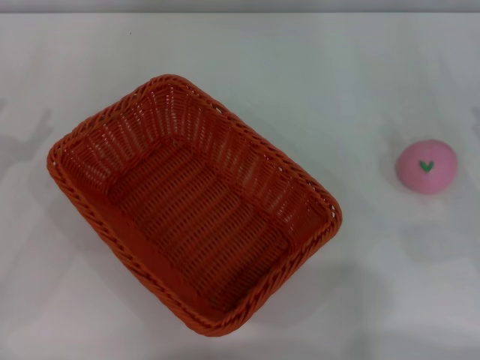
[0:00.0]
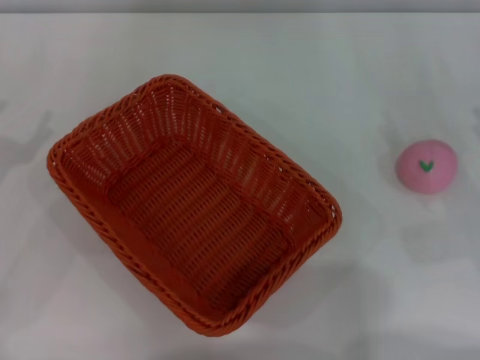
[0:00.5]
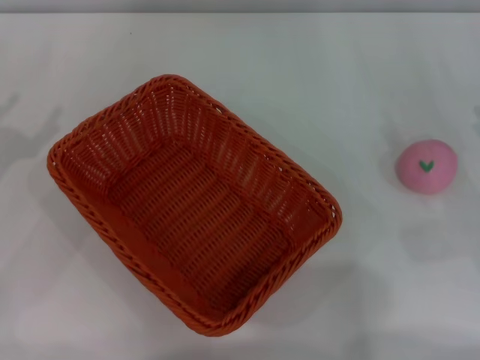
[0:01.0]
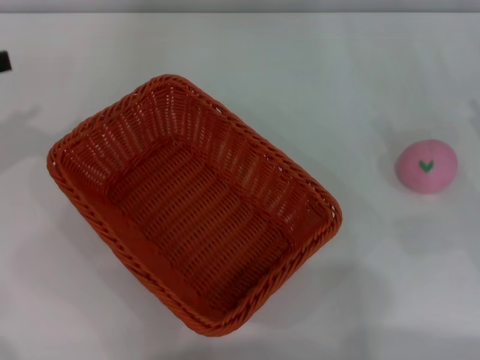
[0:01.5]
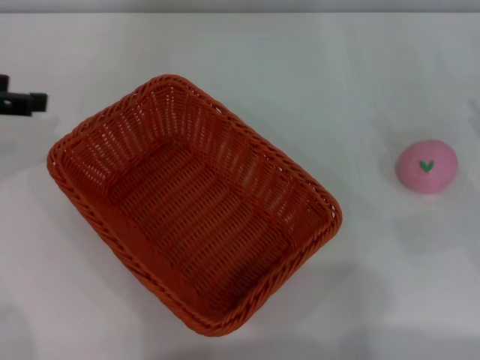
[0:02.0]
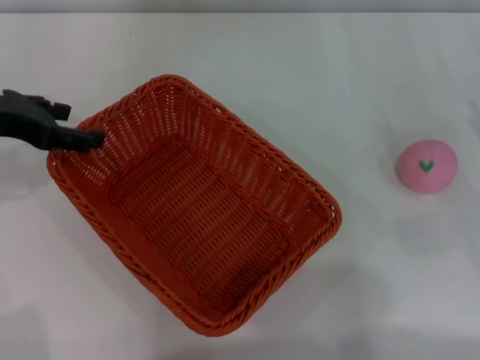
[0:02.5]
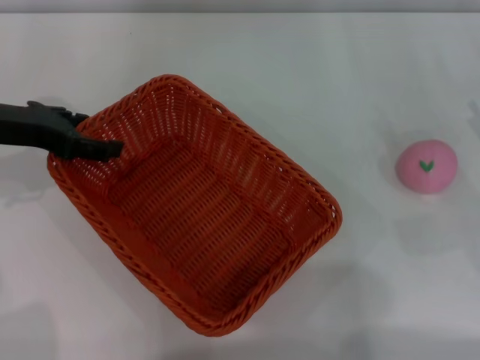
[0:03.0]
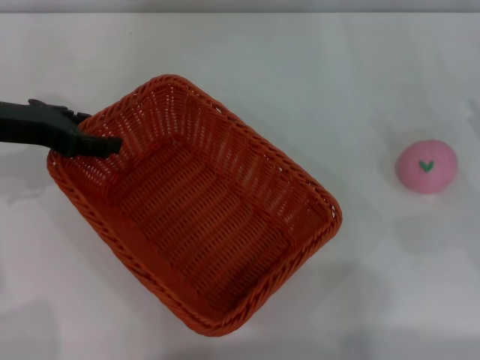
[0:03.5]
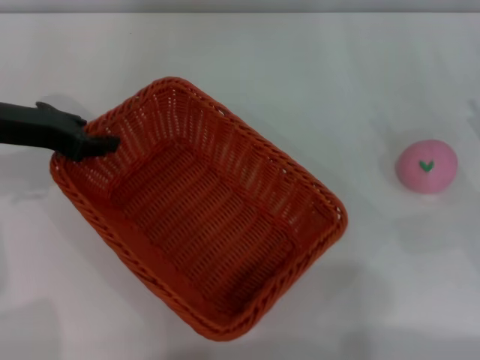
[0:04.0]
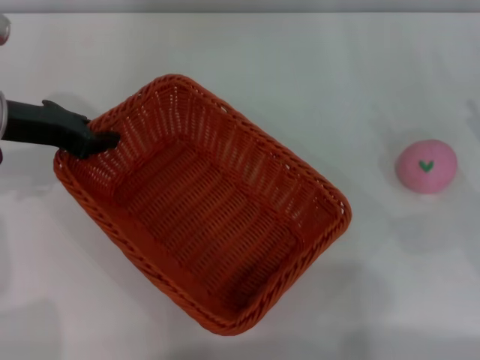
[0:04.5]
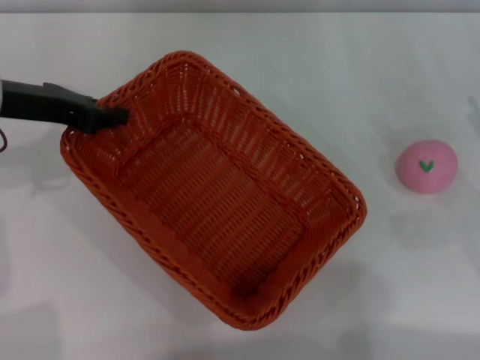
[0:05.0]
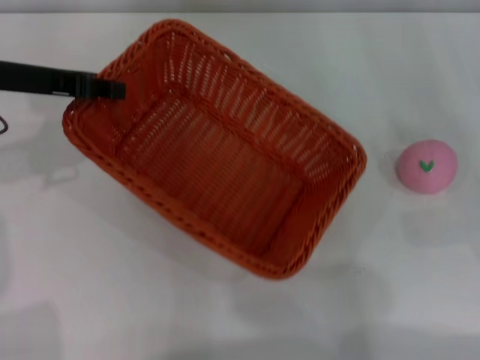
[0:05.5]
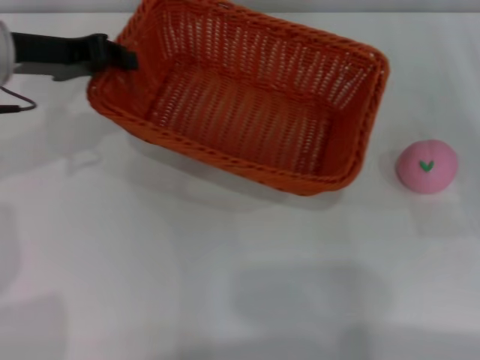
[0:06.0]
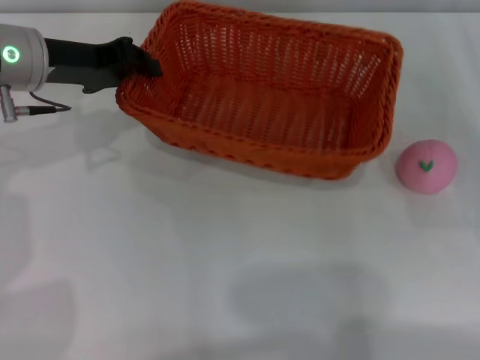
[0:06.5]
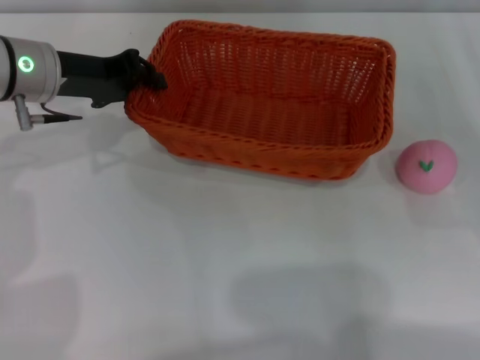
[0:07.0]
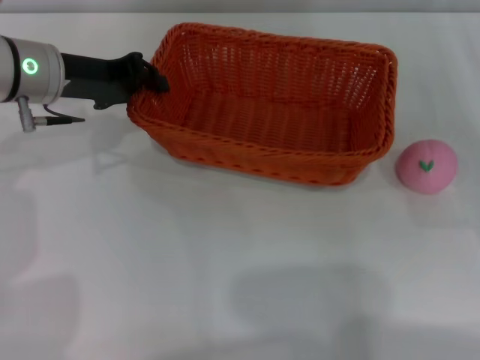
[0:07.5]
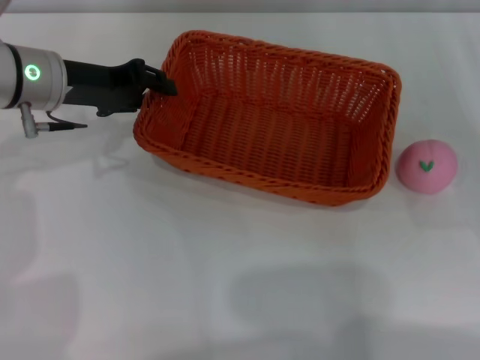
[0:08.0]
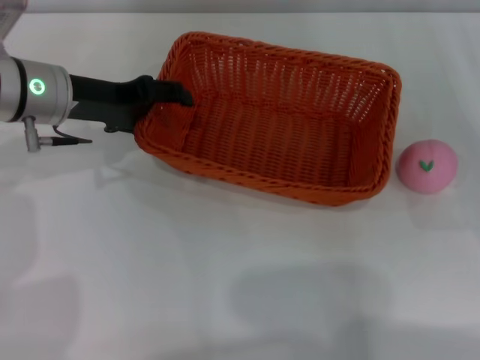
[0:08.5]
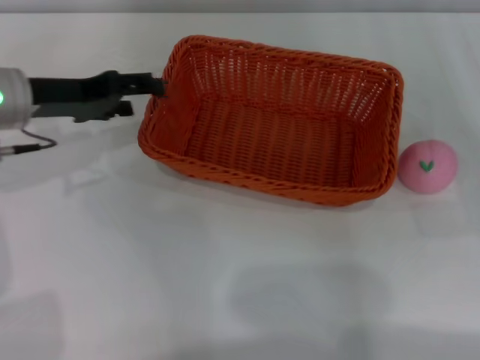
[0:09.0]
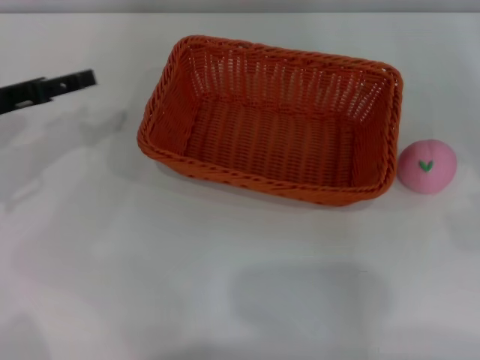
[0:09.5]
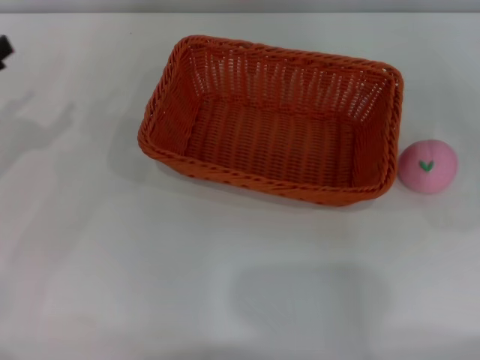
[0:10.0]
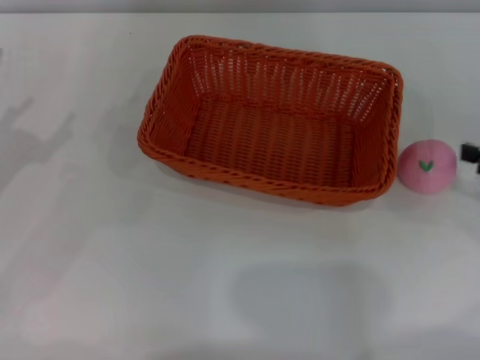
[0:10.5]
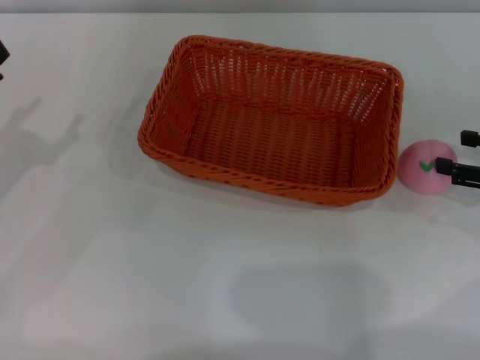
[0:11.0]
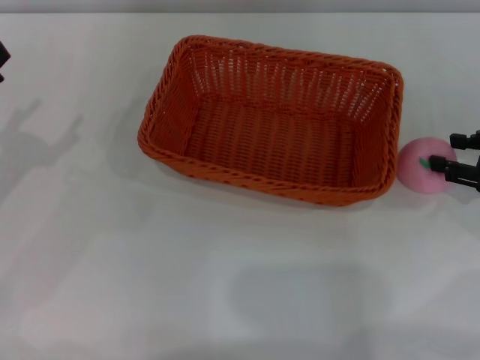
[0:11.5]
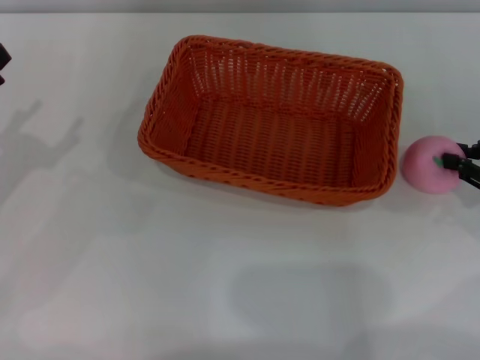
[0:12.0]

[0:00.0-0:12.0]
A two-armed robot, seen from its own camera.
Step, 0:00.0 to 0:05.5: Pick up the light basket with the left gripper.
Step, 0:06.0 to 0:09.0: Place the light basket in the center of view with the right gripper.
0:00.0 to 0:02.0: The left gripper goes about 15 cm upward and forward.
0:02.0 to 0:04.0: The left gripper moves to the right and downward, about 10 cm.
0:04.0 to 0:06.0: The left gripper changes place by some 5 cm, and closes its fingers.
0:06.0 to 0:08.0: The left gripper ends up some 5 cm from where it was.
0:08.0 to 0:10.0: The left gripper is displaced to the left and backward by approximately 15 cm, and opens. The right gripper goes about 10 cm upward and to the right.
0:10.0 to 0:12.0: The right gripper heads to the left and downward, covering roughly 10 cm, and closes.

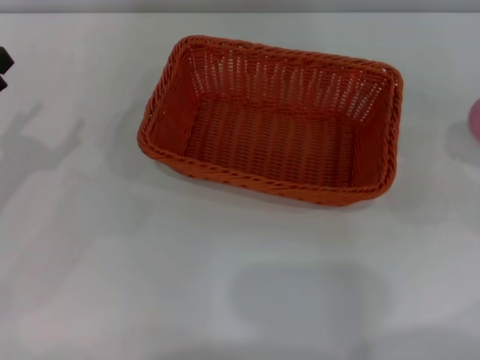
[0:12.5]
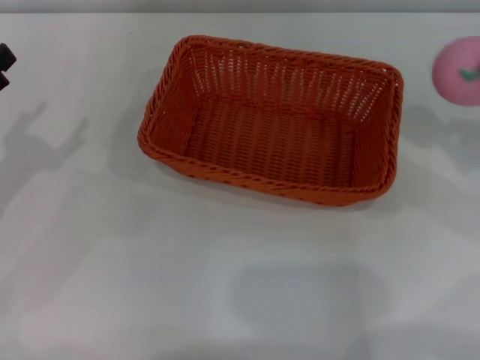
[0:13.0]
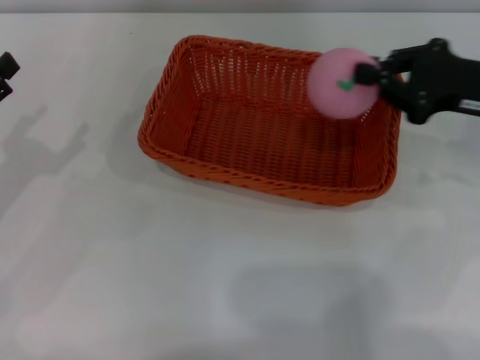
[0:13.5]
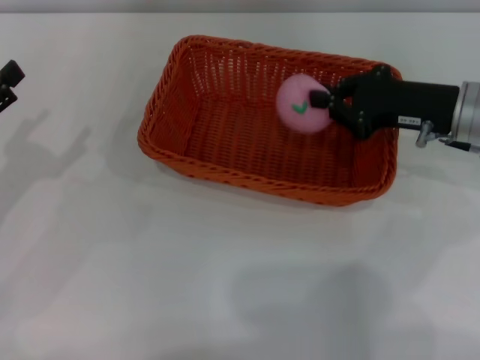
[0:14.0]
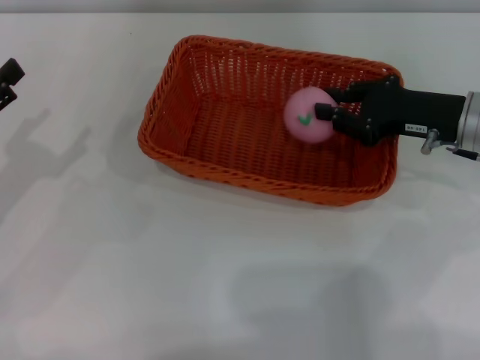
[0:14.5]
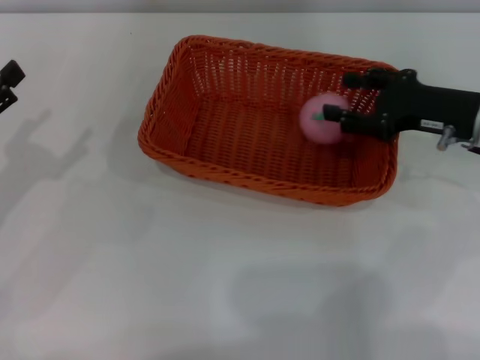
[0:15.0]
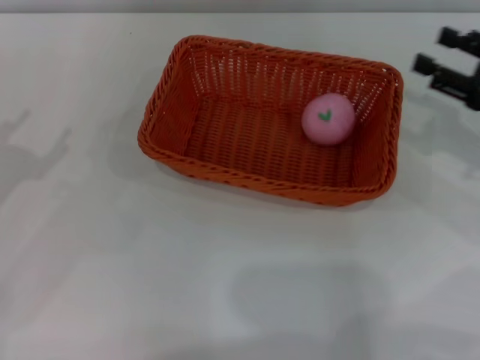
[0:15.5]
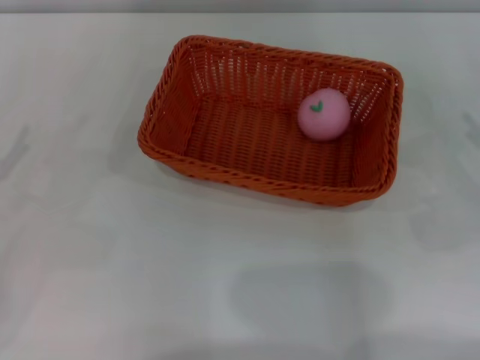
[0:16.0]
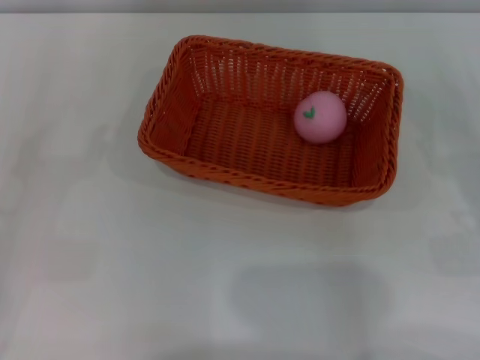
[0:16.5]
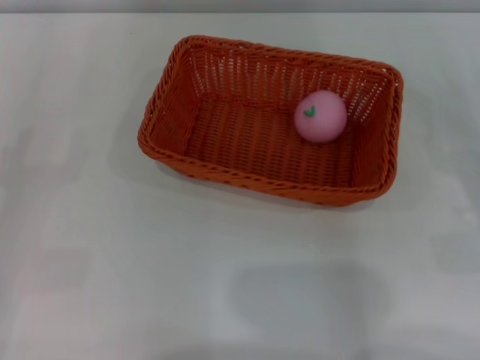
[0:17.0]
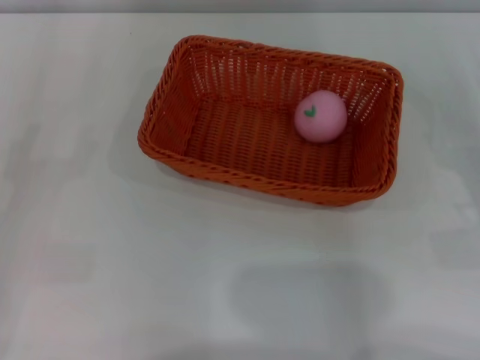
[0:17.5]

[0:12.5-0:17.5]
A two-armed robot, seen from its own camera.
0:12.5 to 0:15.0: The right gripper heads to the left and forward, covering roughly 15 cm, and opens.
0:15.0 to 0:17.5: The right gripper is displaced backward and to the right by roughly 15 cm; the left gripper ends up about 5 cm from where it was.

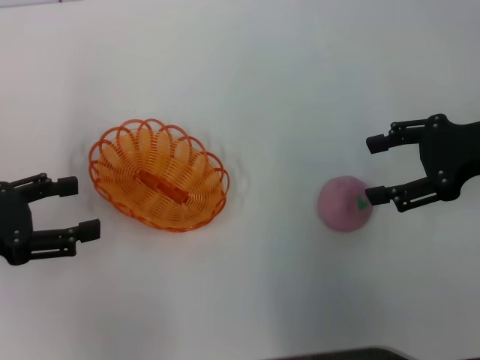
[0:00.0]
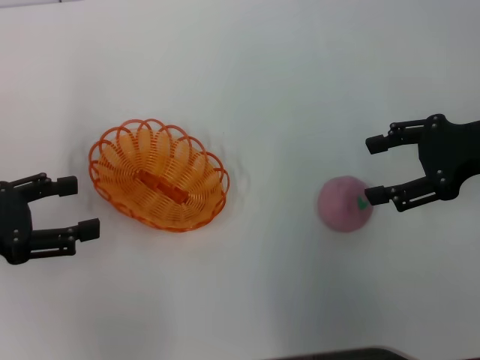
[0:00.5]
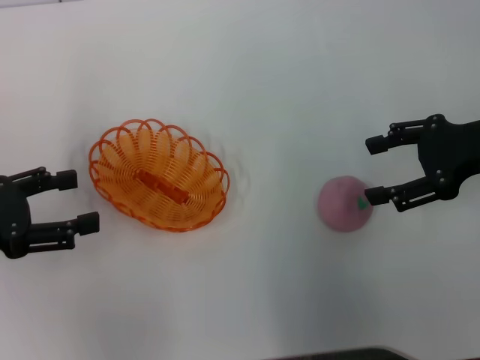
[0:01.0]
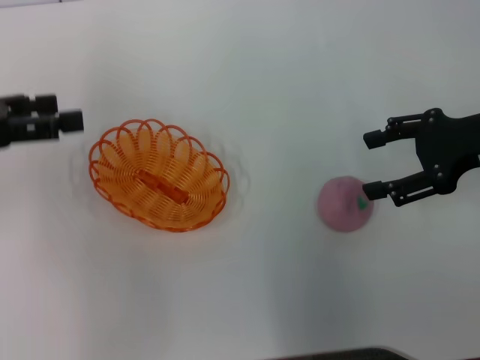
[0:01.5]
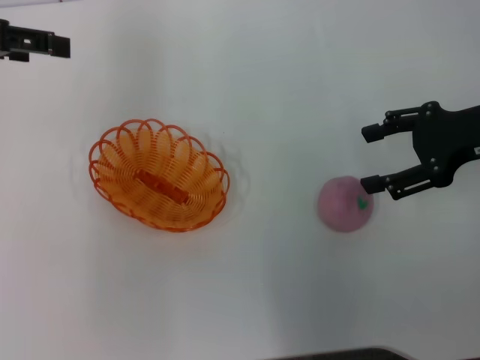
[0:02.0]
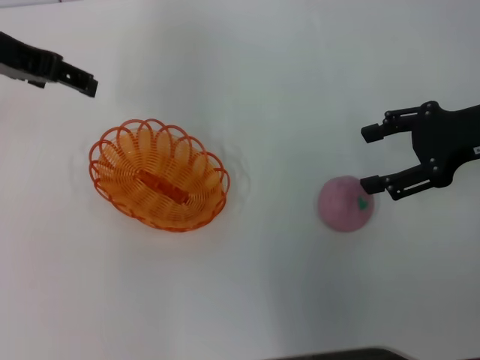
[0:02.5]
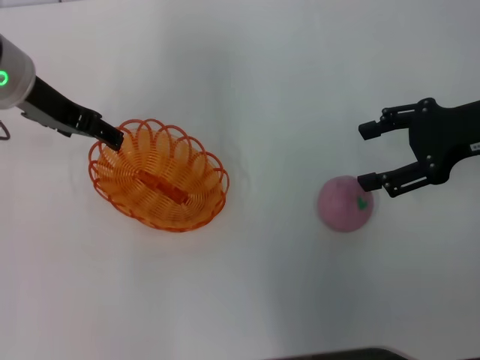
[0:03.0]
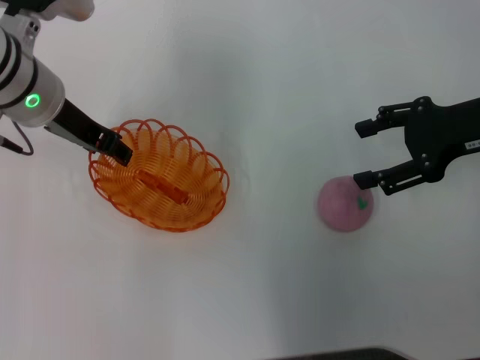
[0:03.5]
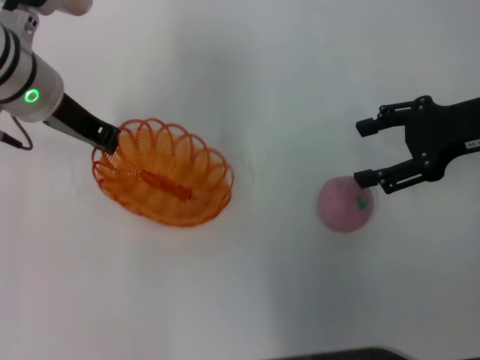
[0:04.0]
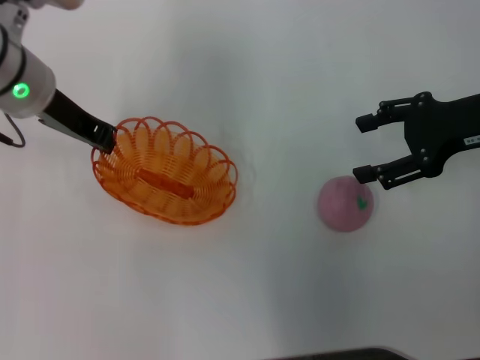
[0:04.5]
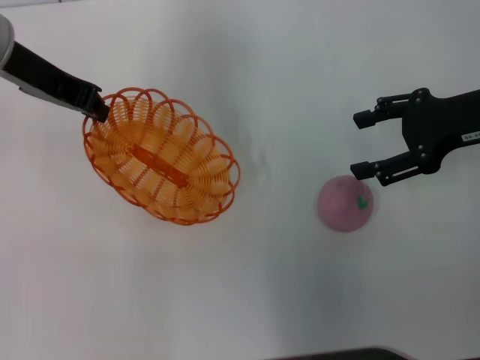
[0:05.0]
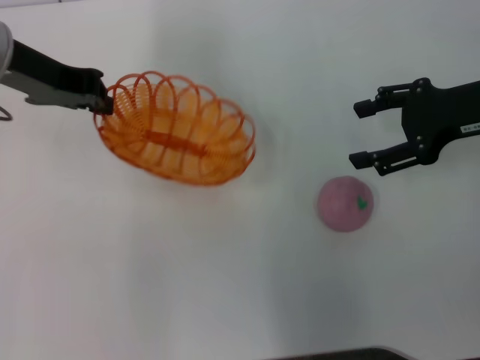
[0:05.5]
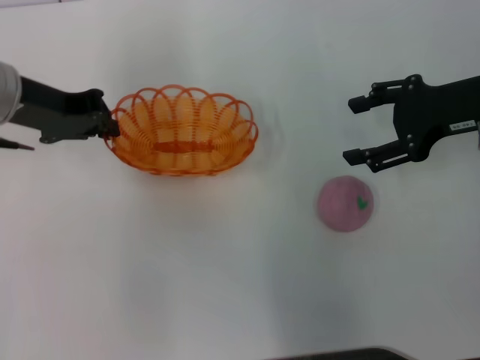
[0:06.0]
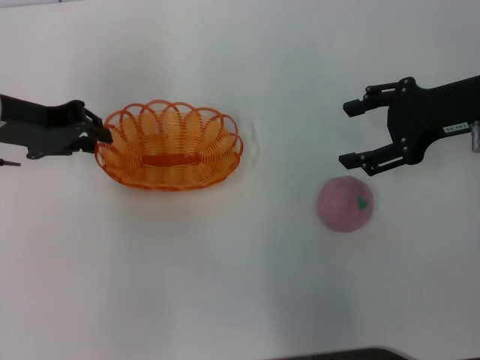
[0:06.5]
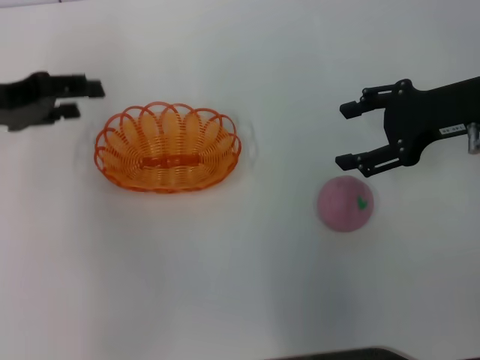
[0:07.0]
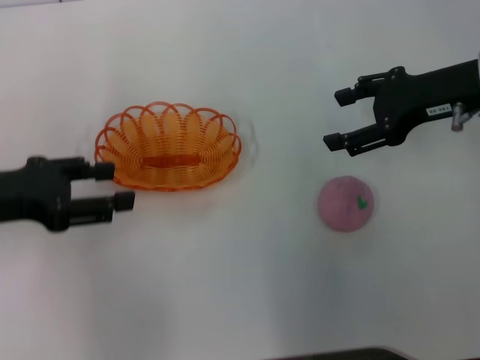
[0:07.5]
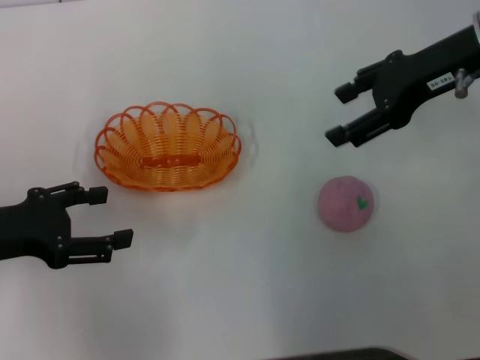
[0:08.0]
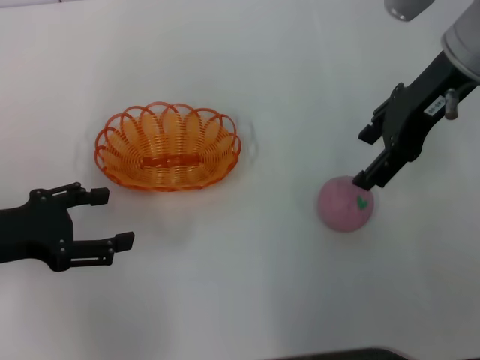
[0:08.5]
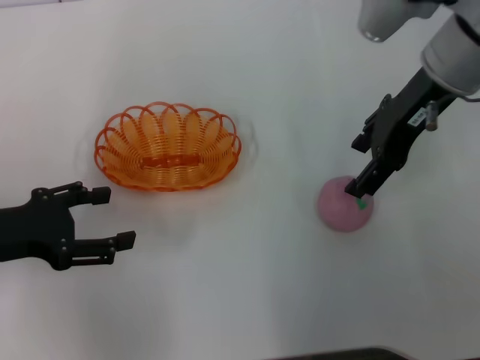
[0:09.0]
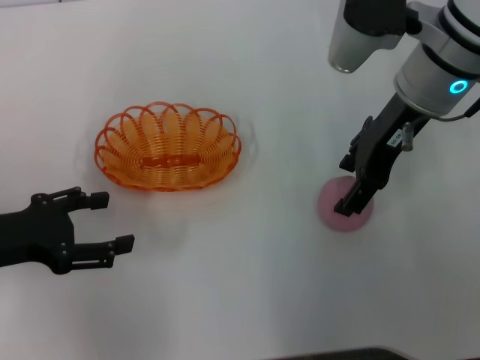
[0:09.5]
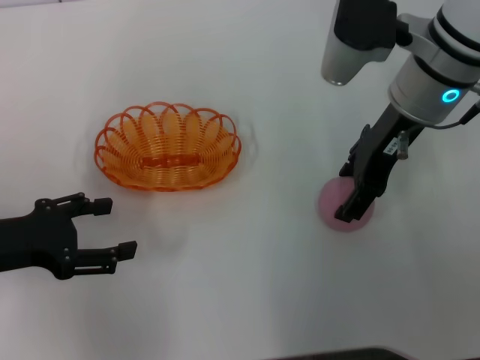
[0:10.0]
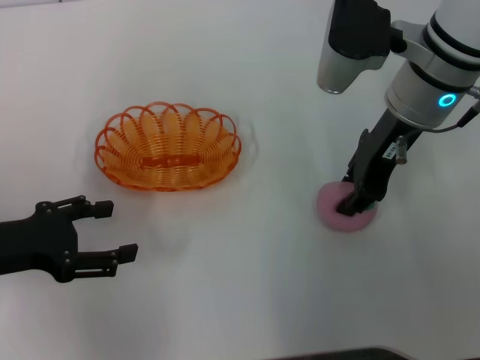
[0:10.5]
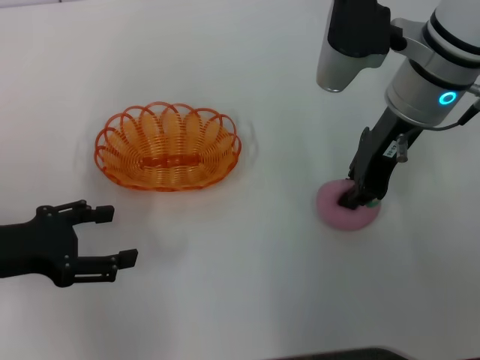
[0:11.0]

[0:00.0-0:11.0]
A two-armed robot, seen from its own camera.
Step, 0:00.0 to 0:05.0: Pick up the basket with the left gripper.
Step, 0:05.5 to 0:07.5: Place the basket in the center of view with the left gripper.
0:00.0 to 0:02.0: The left gripper moves upward and forward, approximately 20 cm.
0:02.0 to 0:03.5: The left gripper goes about 15 cm to the right and downward.
0:03.5 to 0:05.5: The left gripper moves upward, some 5 cm, and closes up.
0:05.5 to 0:07.5: The left gripper heads backward, to the left and downward, covering about 15 cm, and opens its fingers.
0:07.5 to 0:09.0: The right gripper shifts some 5 cm to the left.
0:09.0 to 0:11.0: The right gripper closes its fingers.
